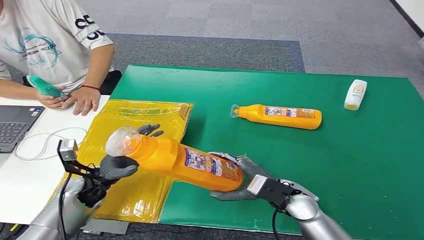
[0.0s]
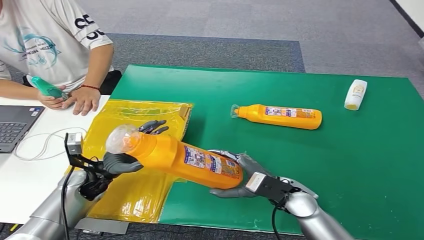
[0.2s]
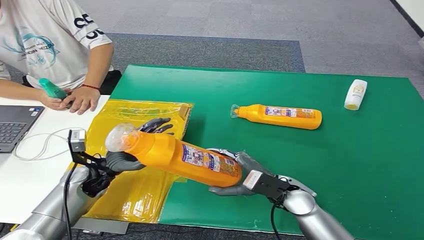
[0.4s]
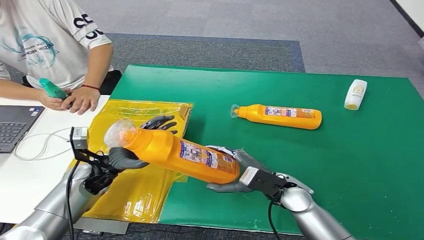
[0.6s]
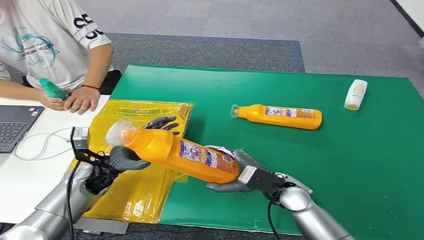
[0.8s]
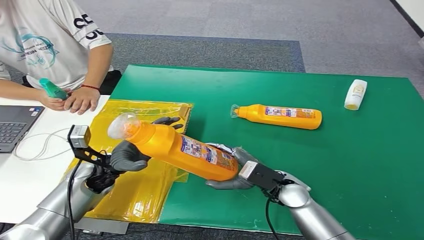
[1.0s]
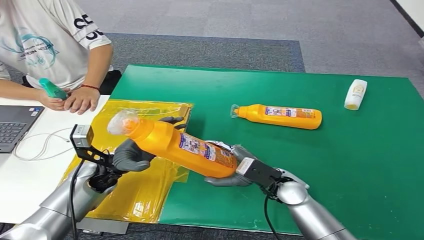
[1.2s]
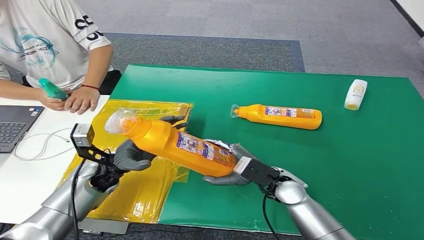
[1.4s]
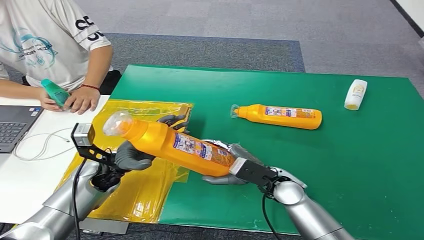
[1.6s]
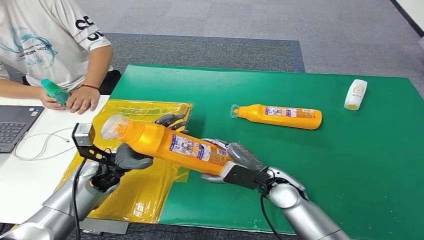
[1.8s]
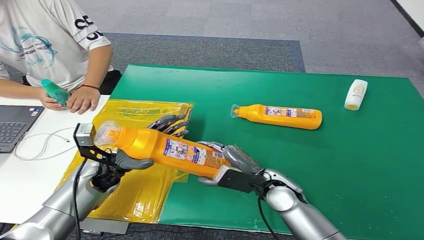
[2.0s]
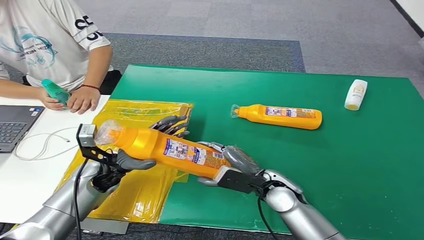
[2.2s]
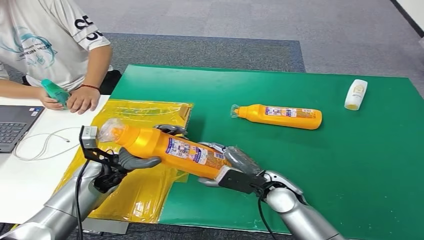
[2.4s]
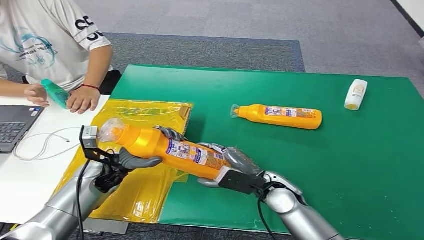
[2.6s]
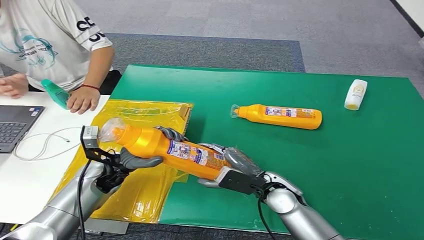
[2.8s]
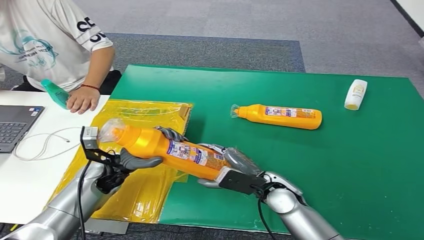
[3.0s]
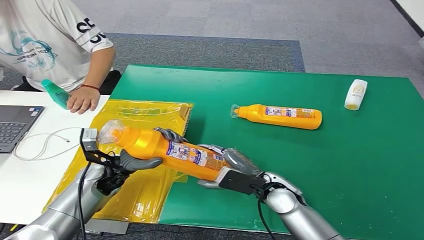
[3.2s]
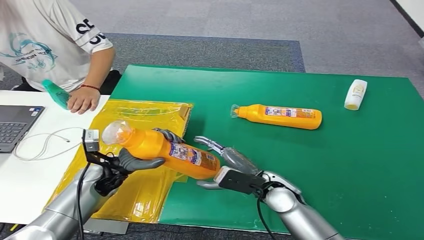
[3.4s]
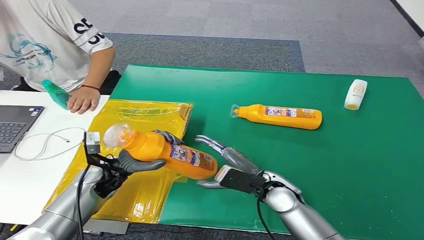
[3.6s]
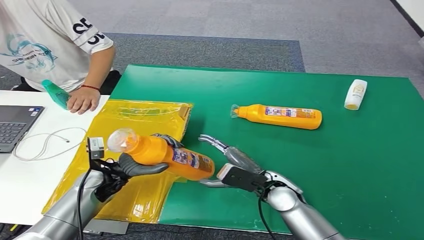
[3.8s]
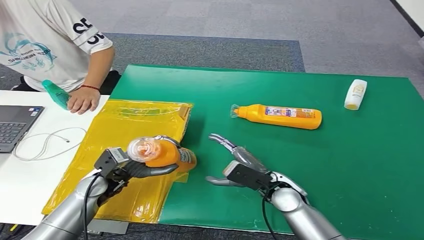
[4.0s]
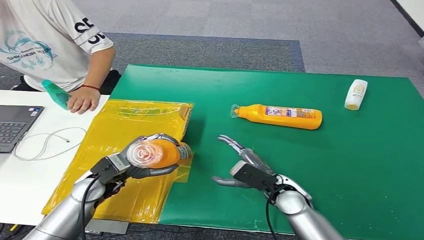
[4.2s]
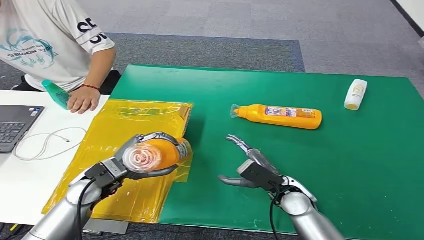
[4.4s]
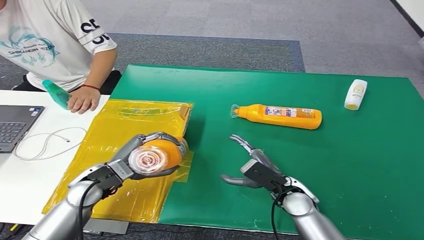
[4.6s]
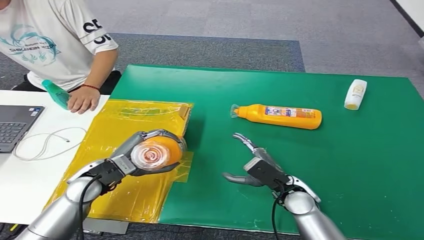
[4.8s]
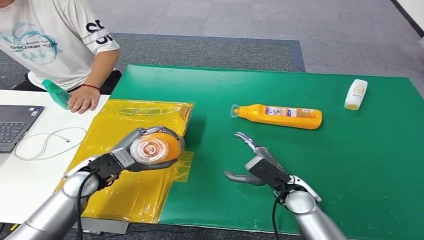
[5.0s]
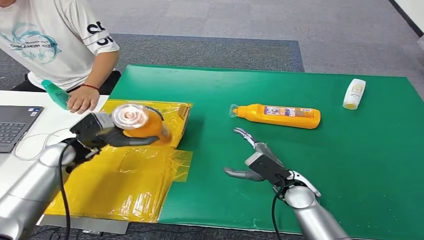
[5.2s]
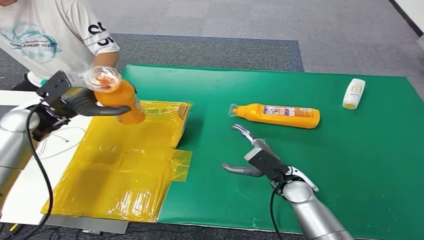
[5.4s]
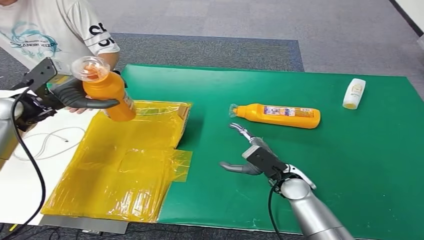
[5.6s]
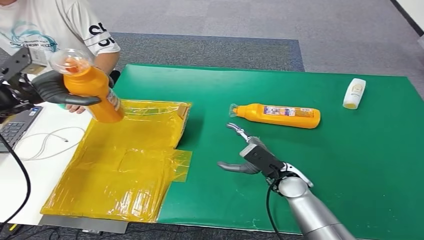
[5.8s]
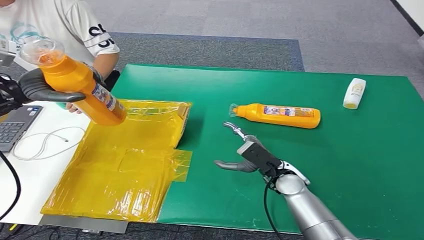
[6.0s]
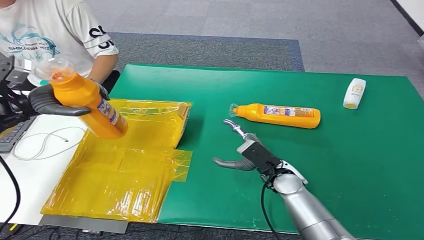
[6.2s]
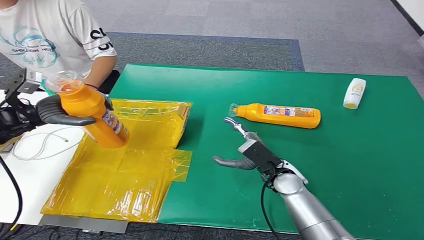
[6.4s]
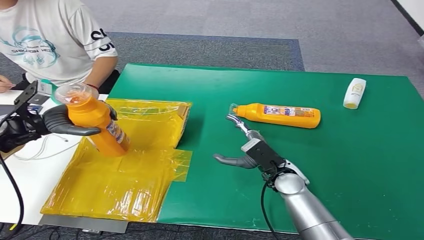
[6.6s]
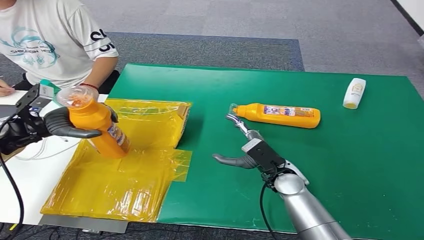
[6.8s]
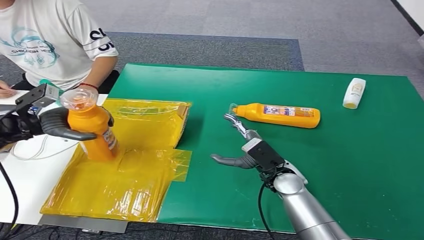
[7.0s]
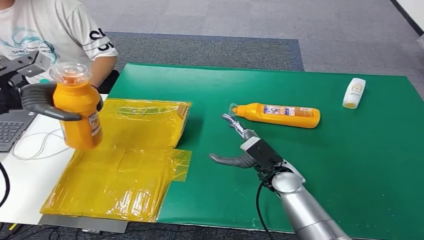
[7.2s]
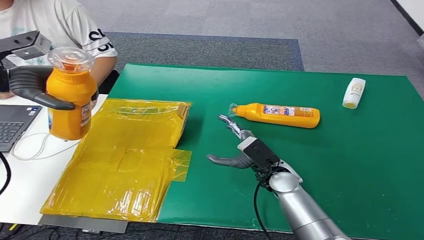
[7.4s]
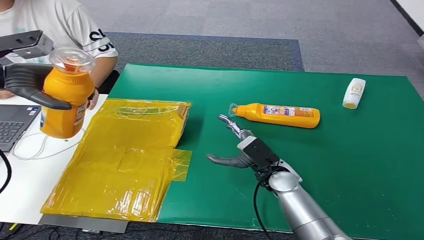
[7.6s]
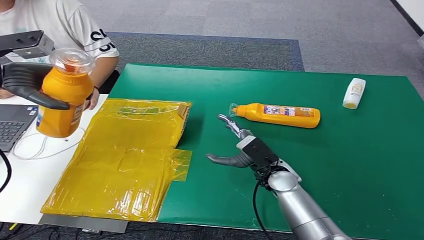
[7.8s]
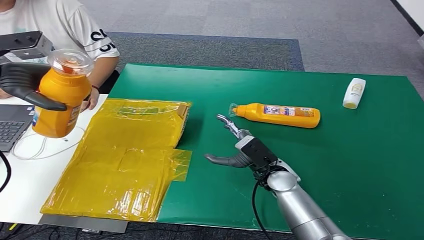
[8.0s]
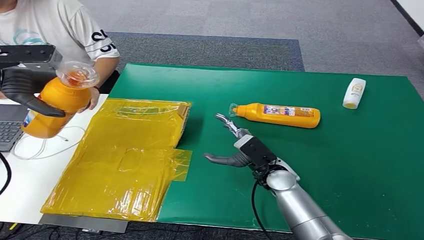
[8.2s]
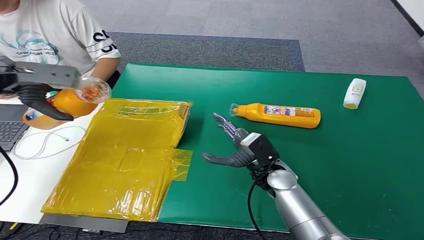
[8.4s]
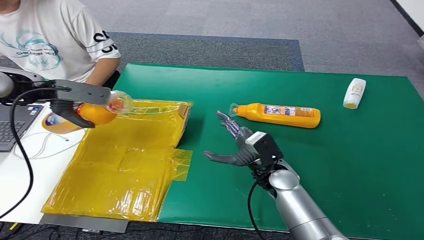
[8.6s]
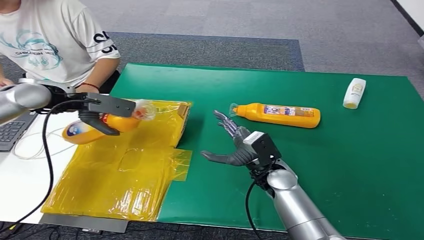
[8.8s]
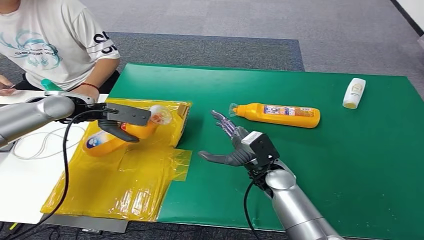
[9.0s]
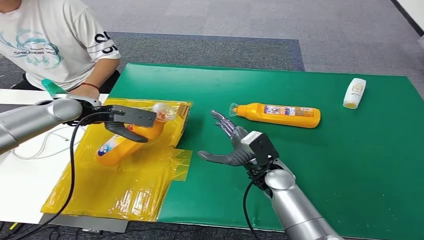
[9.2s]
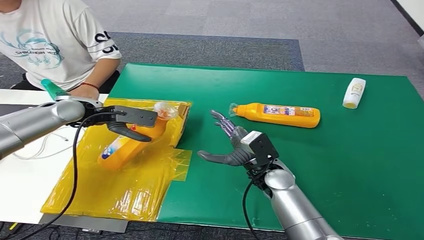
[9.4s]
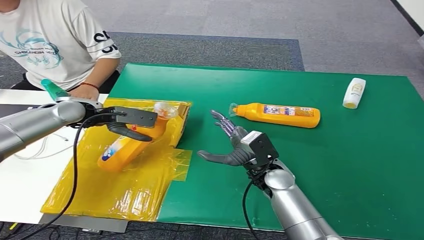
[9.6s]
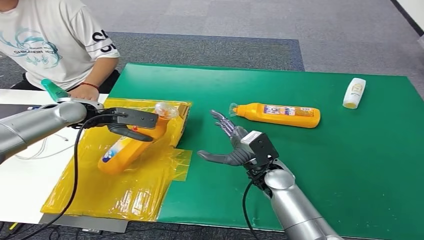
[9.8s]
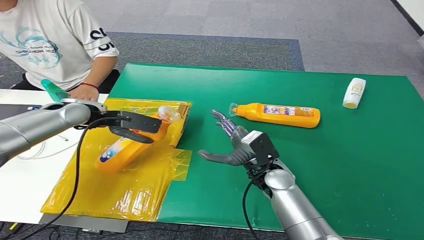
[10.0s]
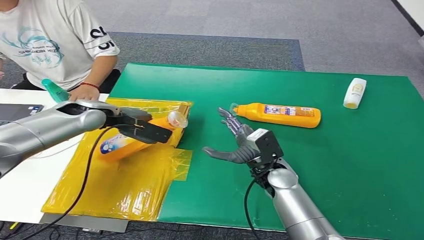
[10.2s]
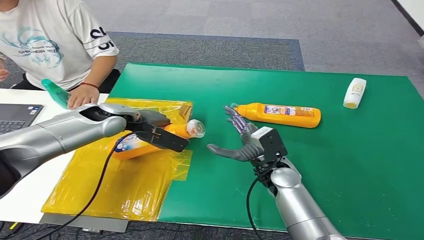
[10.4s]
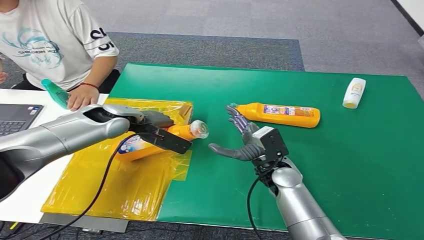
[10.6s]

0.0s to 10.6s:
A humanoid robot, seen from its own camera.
0.0s to 1.6s: The left hand changes place by approximately 5 cm.
1.6s to 3.0s: The hands move only a little.
3.0s to 4.6s: The left hand ends up about 5 cm from where it was.
6.0s to 7.6s: The left hand moves upward, about 10 cm.
7.6s to 9.0s: The left hand heads downward and to the right, covering roughly 15 cm.

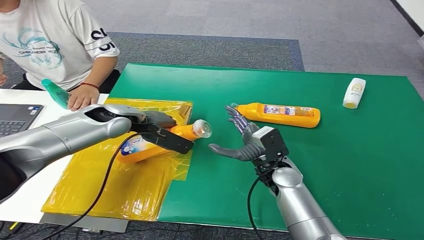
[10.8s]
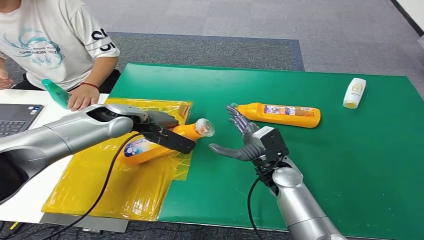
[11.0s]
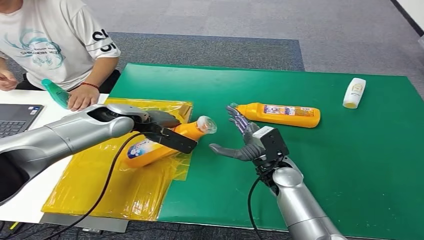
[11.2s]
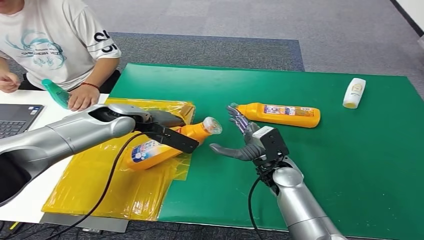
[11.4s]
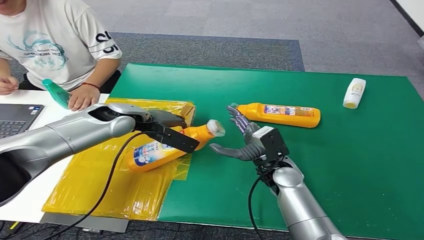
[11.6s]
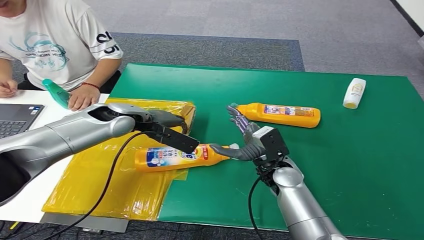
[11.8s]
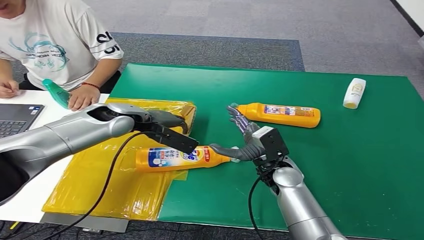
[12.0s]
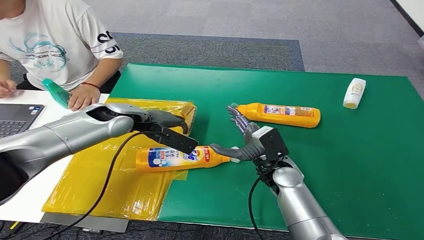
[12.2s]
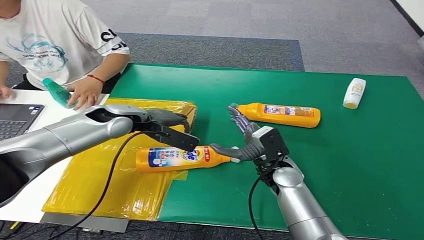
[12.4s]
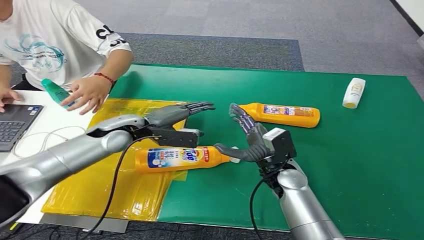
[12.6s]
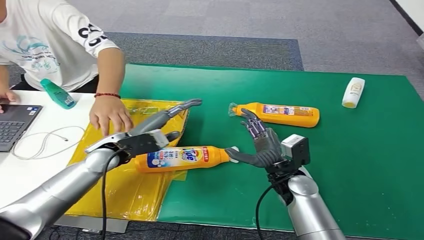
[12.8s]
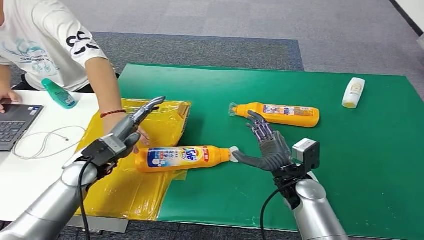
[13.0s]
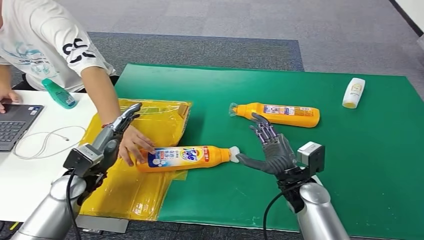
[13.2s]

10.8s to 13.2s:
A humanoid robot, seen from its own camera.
Step, 10.8s to 13.2s: Turn the bottle to the front side.
10.8s to 12.0s: The two hands keep their place.
